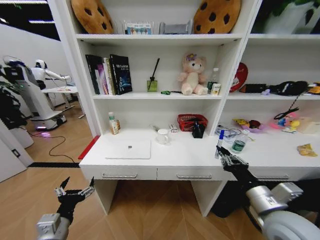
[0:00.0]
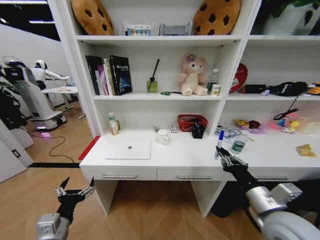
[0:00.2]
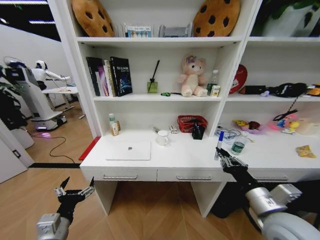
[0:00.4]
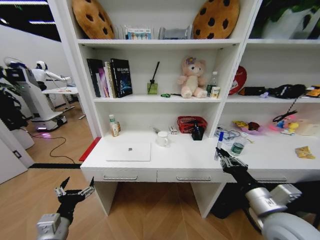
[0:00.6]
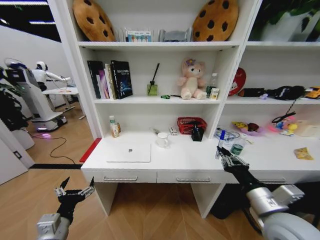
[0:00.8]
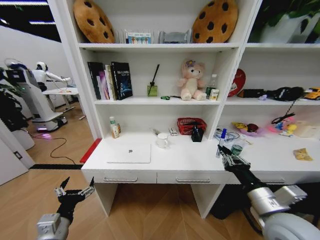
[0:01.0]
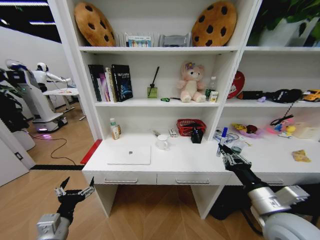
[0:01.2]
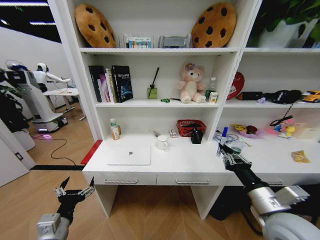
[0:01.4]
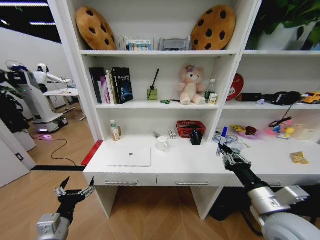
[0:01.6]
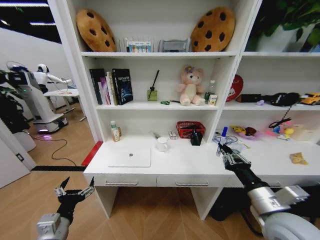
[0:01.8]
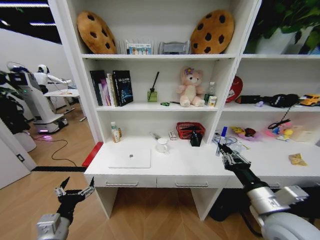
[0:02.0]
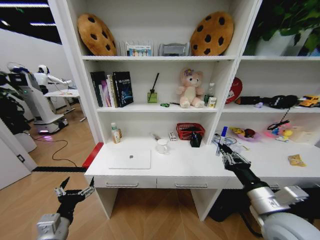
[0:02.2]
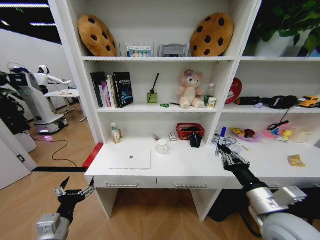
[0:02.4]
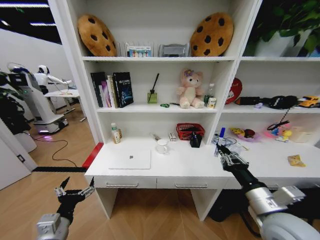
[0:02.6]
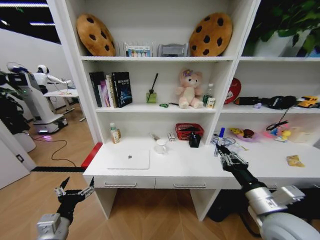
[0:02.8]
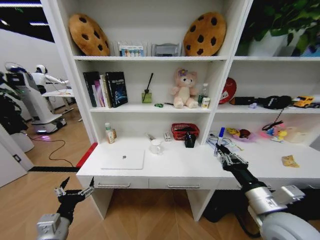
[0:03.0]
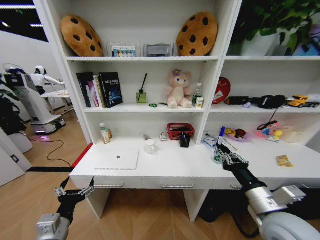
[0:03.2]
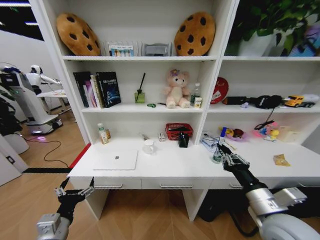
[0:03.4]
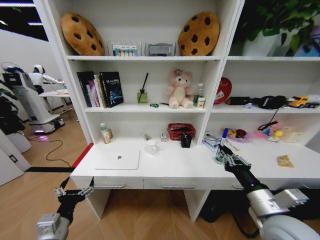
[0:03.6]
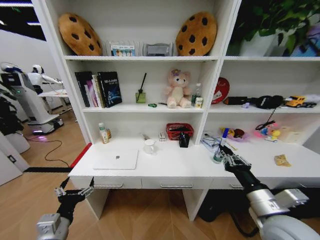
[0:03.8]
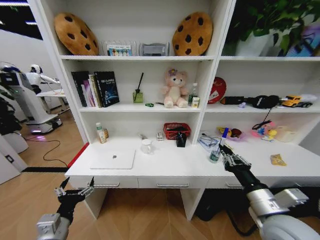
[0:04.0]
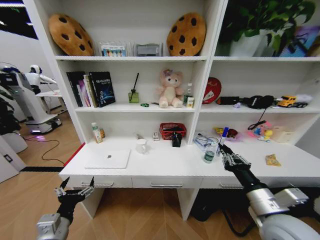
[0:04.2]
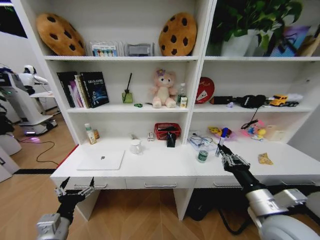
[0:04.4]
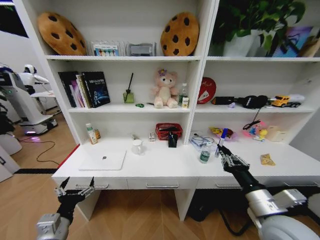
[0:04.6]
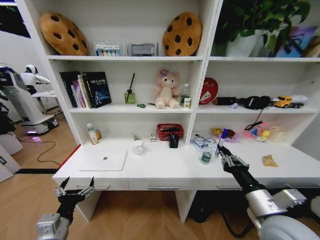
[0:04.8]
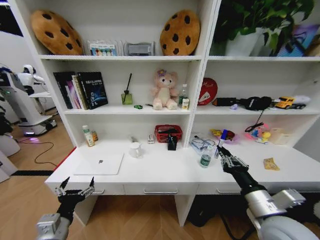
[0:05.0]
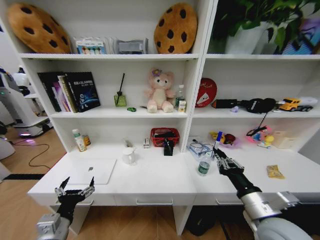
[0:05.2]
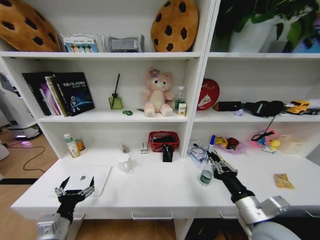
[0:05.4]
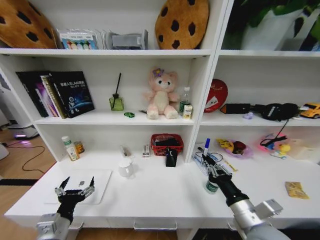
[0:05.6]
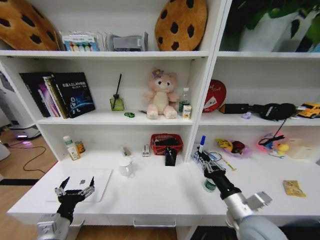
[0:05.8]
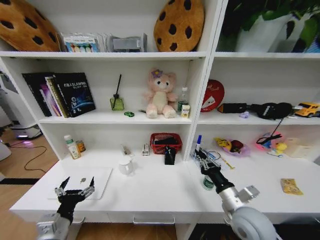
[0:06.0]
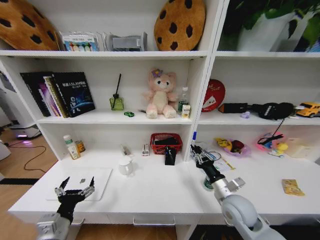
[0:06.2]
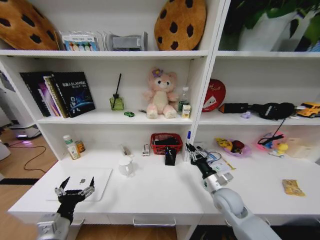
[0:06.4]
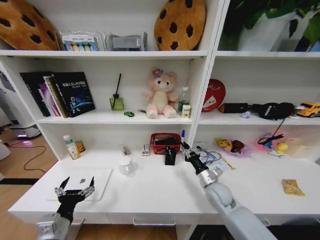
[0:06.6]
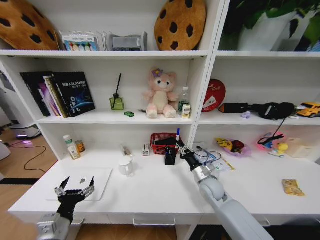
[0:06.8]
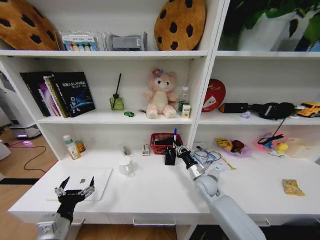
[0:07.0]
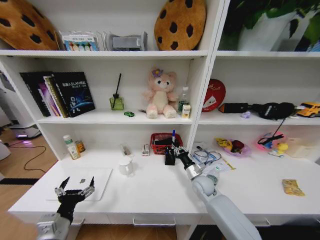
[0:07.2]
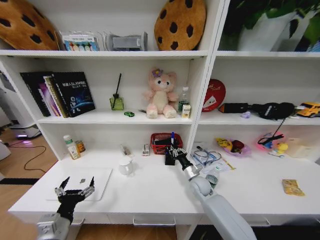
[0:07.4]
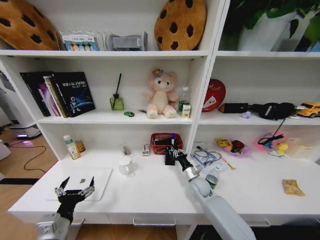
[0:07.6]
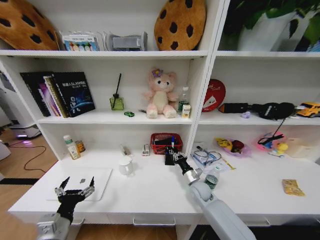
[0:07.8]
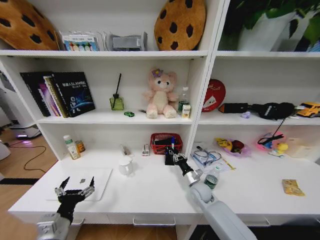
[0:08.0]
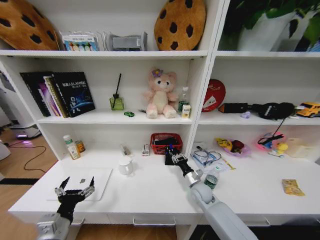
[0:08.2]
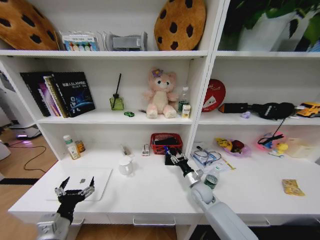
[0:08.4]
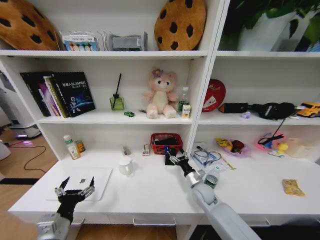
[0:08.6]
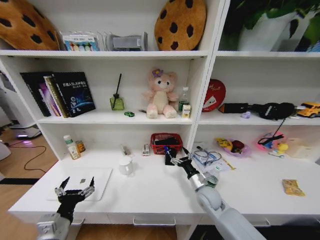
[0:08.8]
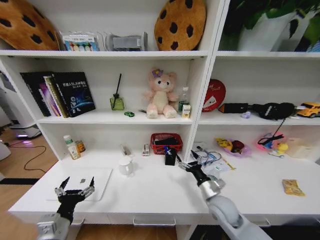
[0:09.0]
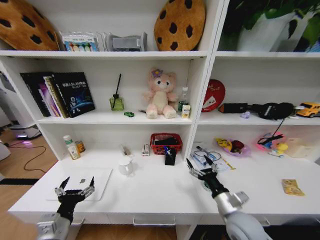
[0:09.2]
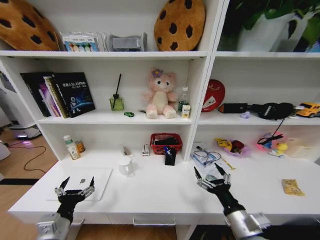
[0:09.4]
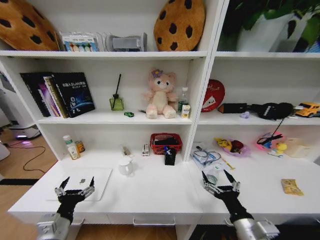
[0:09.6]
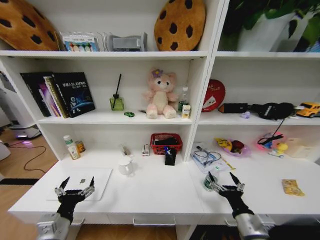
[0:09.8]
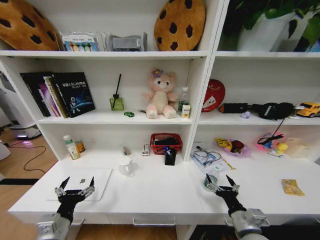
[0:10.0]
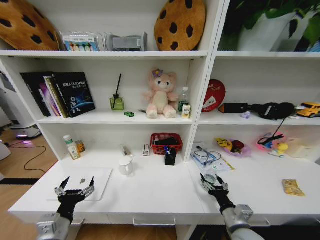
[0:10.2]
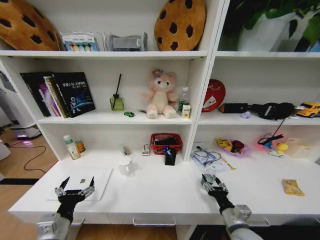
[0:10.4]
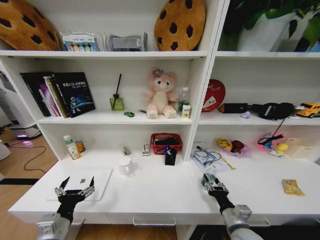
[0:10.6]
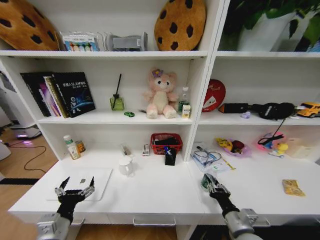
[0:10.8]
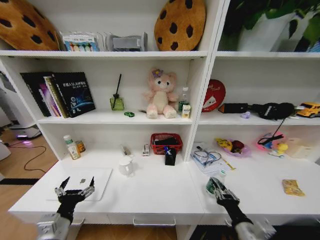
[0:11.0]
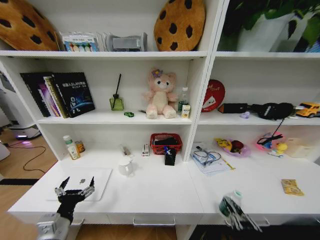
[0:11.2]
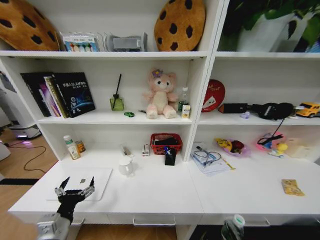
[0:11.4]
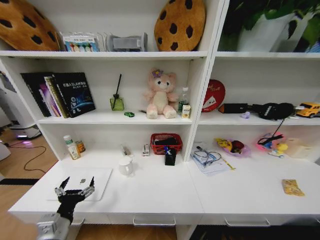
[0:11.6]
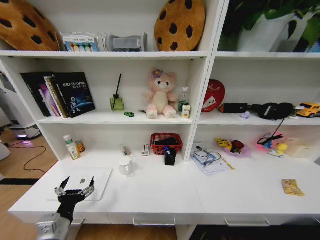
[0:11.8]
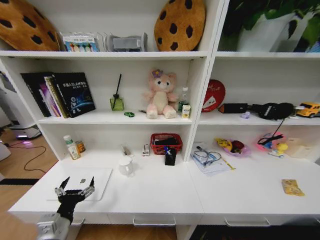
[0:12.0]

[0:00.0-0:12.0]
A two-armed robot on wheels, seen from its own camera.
Task of the whole recording: Organize the objects on the table.
0:04.4 to 0:06.0: The right gripper goes some 5 cm downward.
0:06.0 to 0:07.6: The right gripper moves forward and downward, some 20 cm.
0:07.6 to 0:09.0: The right gripper shifts approximately 15 cm backward and upward, and opens its fingers.
0:09.0 to 0:10.4: The right gripper shifts about 10 cm backward.
0:10.4 to 0:12.0: The right gripper moves backward and downward, roughly 35 cm, and closes.

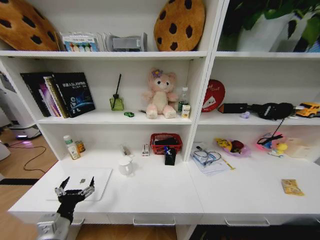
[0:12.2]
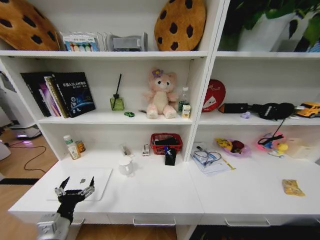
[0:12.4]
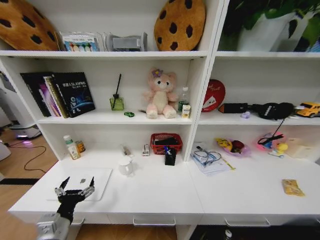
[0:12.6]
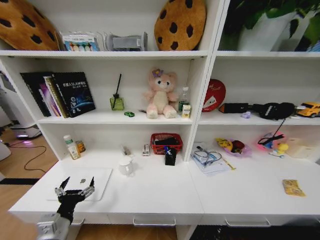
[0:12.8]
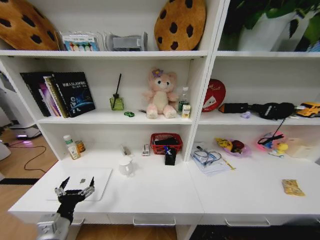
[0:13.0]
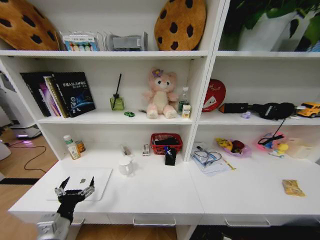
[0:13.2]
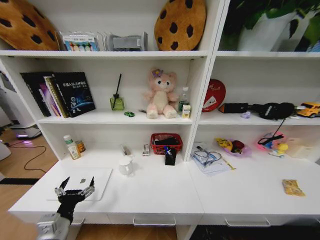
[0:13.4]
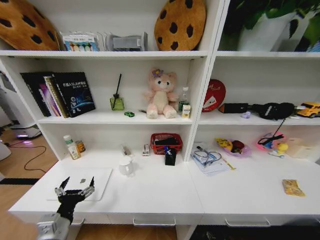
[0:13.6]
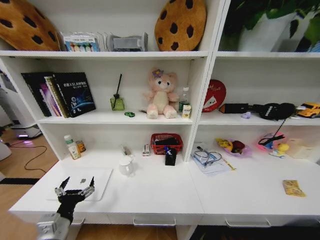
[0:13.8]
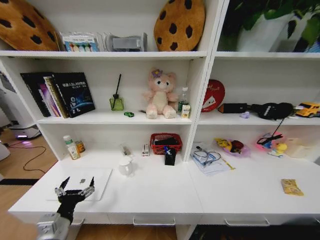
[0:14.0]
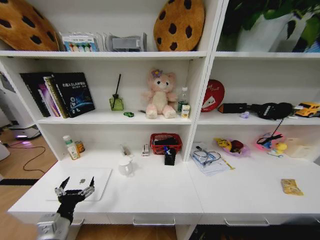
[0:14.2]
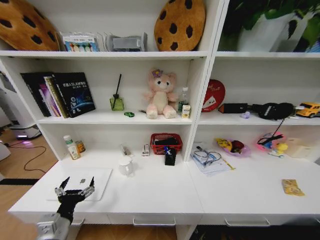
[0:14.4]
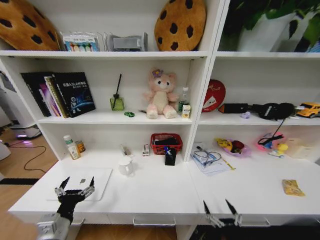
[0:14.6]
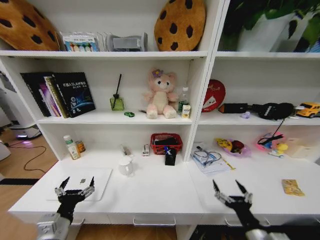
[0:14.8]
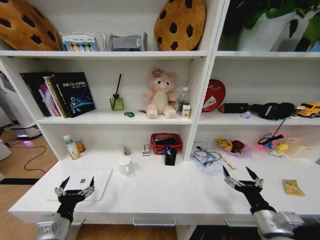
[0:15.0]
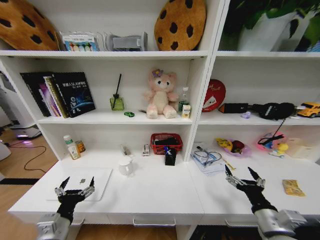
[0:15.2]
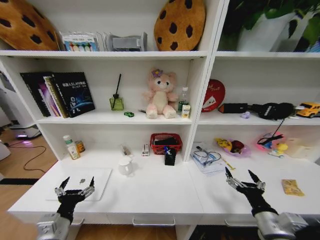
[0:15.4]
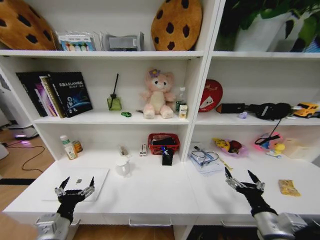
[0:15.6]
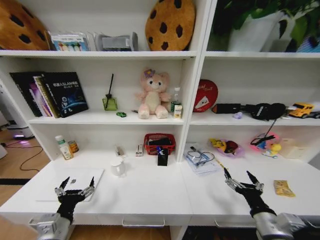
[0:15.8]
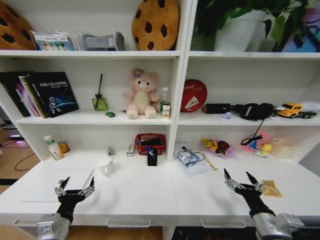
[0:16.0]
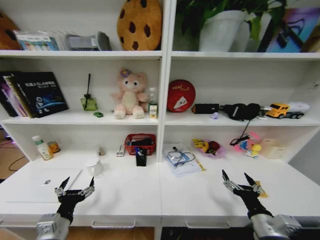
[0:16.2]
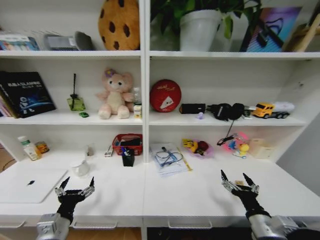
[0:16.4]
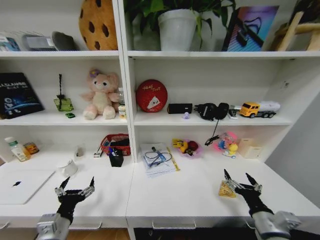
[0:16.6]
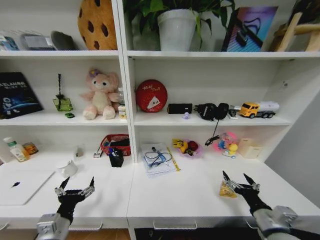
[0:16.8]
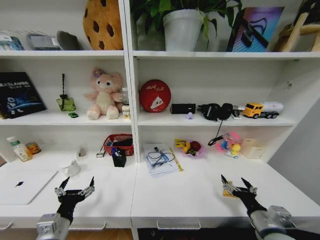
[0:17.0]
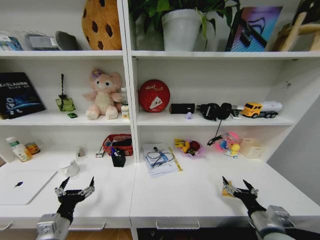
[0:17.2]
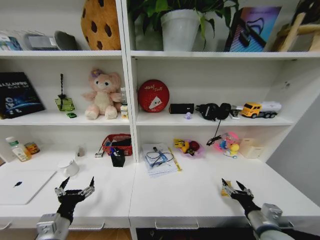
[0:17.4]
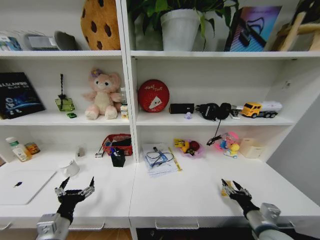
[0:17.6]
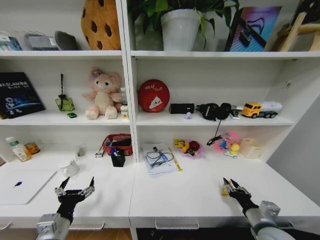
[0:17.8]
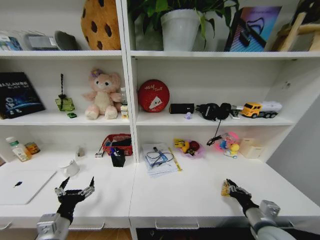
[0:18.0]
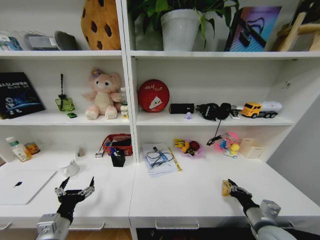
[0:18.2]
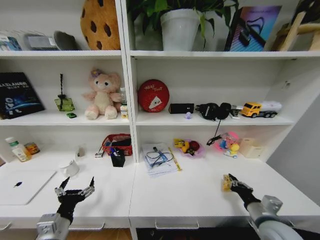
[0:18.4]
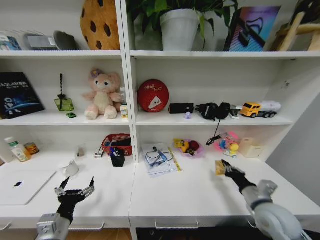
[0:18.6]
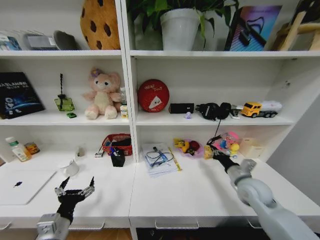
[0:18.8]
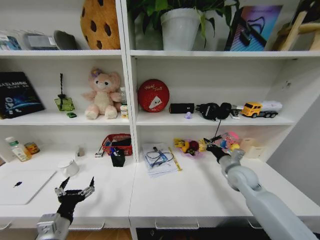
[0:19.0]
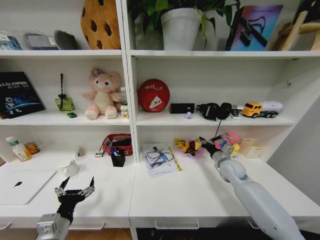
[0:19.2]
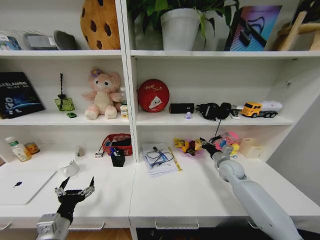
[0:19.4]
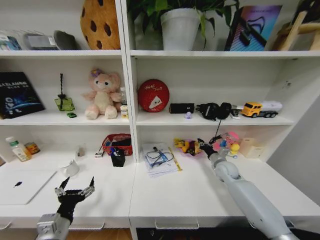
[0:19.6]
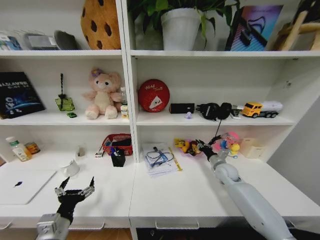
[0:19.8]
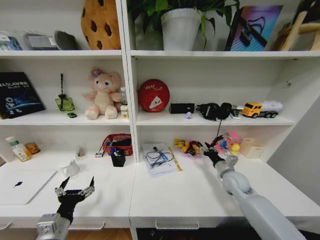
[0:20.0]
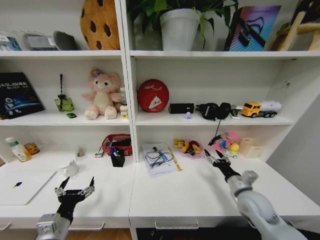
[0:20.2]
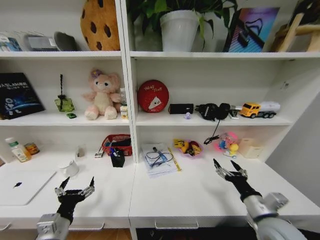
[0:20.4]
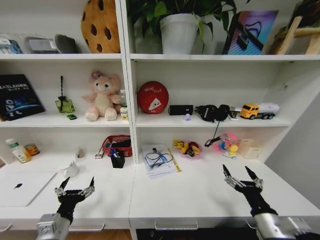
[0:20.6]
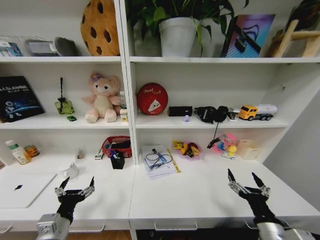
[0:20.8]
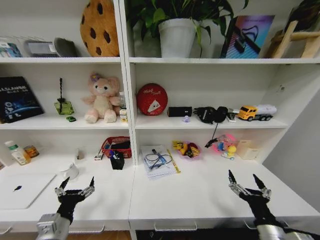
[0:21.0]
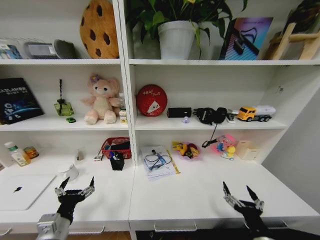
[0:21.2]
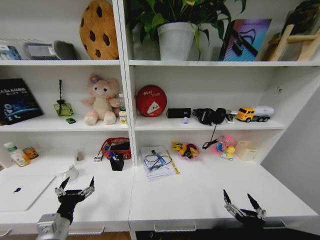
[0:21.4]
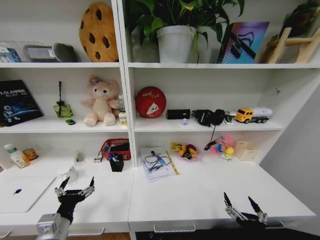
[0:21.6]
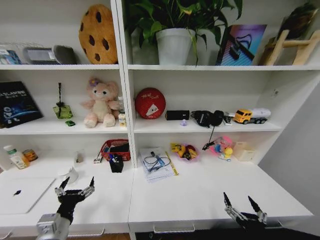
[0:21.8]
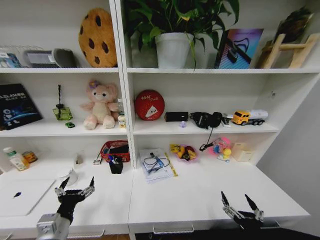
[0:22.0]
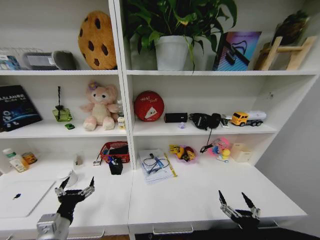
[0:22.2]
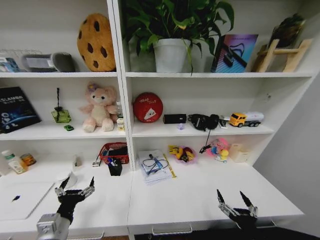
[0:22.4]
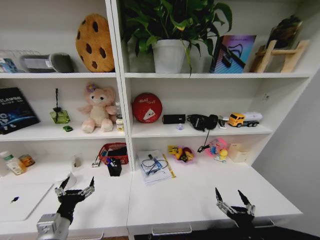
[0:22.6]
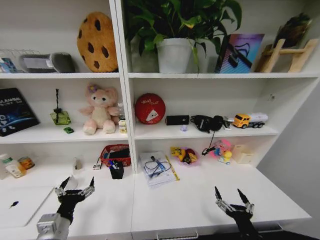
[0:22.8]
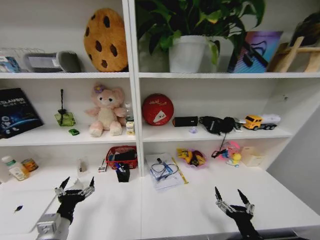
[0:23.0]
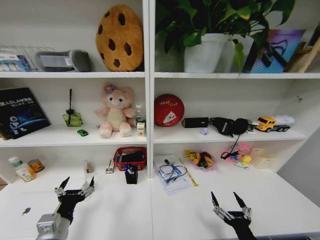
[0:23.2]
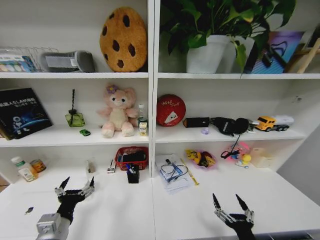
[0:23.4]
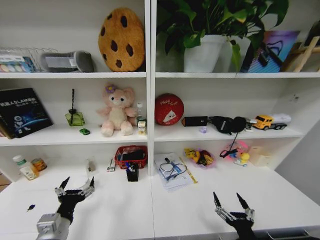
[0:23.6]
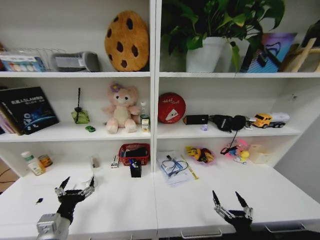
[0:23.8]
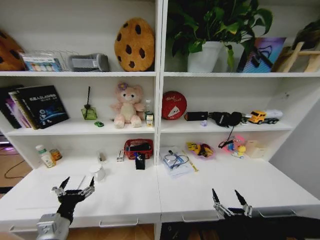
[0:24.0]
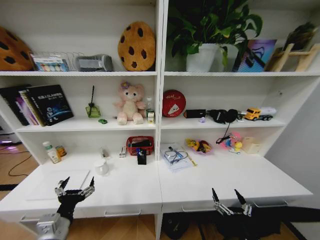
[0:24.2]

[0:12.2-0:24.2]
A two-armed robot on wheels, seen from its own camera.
Task of the whole recording: Organize the objects on the table.
0:12.2 to 0:13.8: The right gripper heads forward and downward, covering some 20 cm, and opens its fingers.
0:13.8 to 0:15.2: The right gripper shifts roughly 35 cm upward.
0:16.6 to 0:18.2: The right gripper closes.
0:18.2 to 0:19.8: The right gripper goes approximately 25 cm forward.
0:19.8 to 0:21.2: The right gripper heads backward, covering approximately 35 cm, and opens its fingers.
